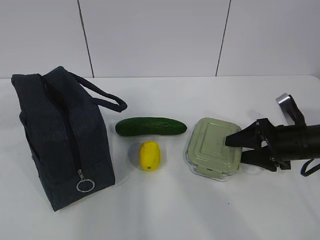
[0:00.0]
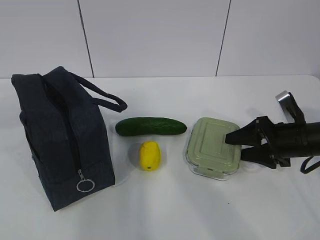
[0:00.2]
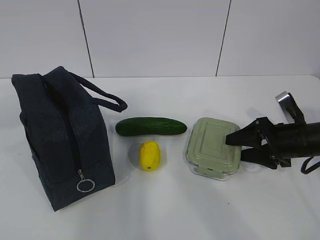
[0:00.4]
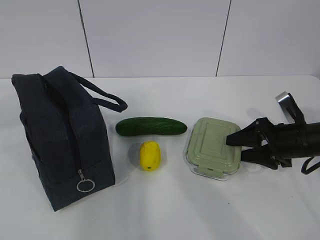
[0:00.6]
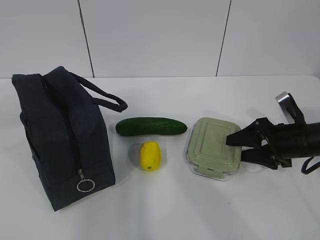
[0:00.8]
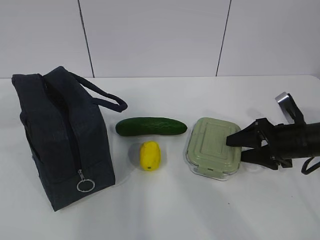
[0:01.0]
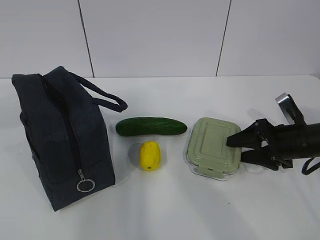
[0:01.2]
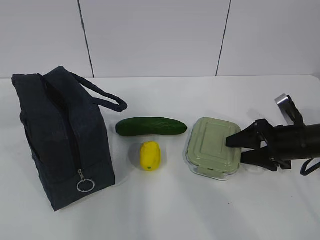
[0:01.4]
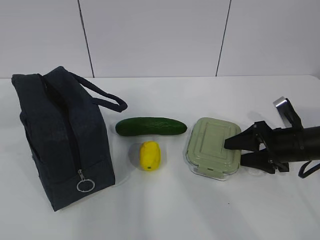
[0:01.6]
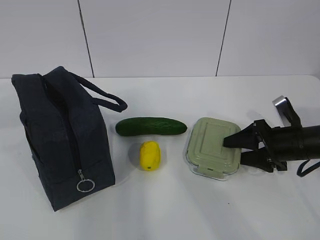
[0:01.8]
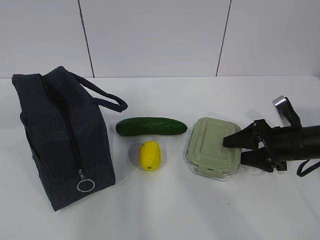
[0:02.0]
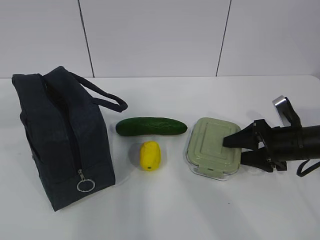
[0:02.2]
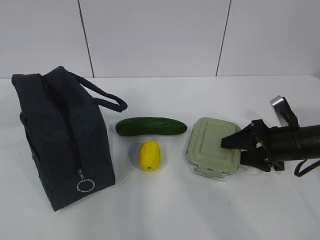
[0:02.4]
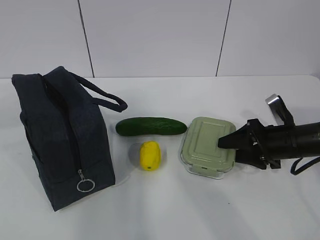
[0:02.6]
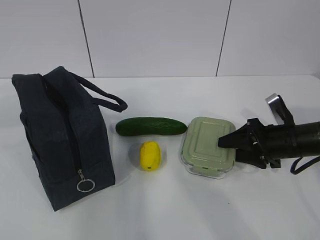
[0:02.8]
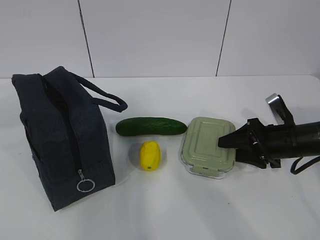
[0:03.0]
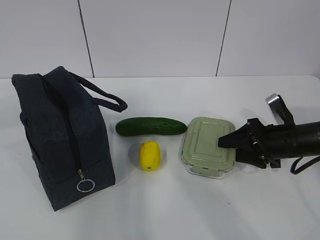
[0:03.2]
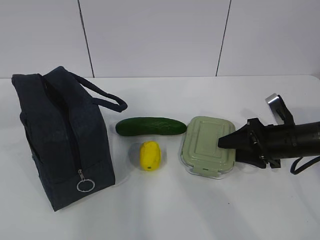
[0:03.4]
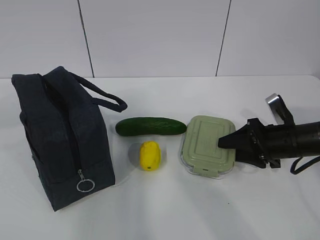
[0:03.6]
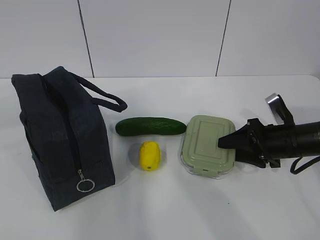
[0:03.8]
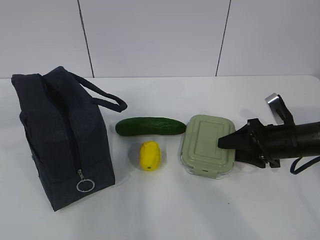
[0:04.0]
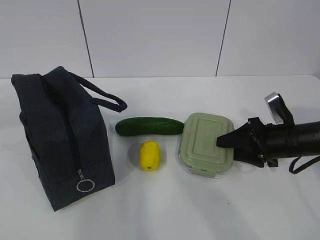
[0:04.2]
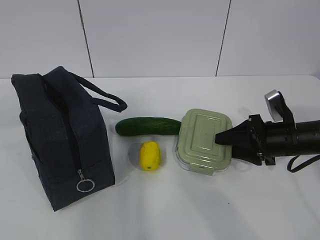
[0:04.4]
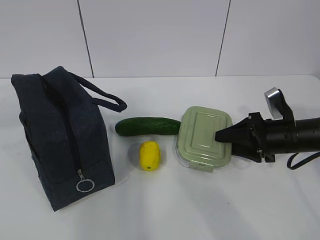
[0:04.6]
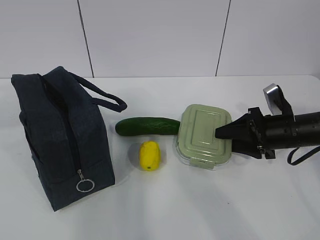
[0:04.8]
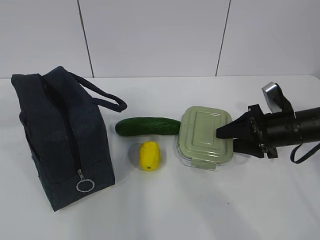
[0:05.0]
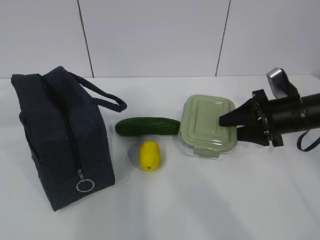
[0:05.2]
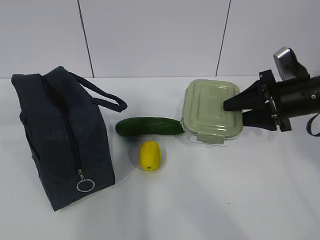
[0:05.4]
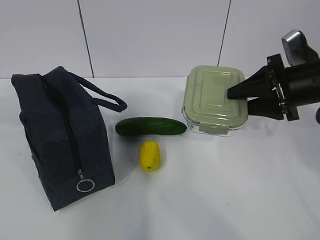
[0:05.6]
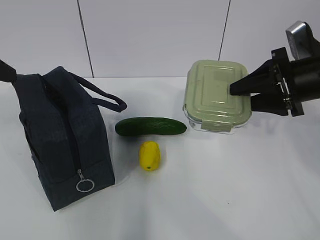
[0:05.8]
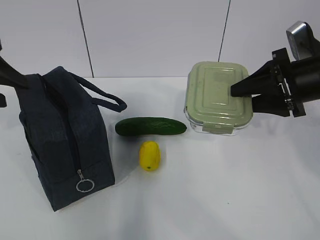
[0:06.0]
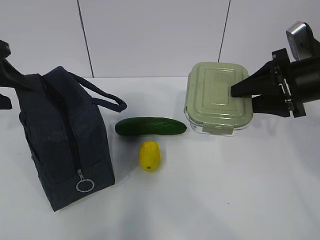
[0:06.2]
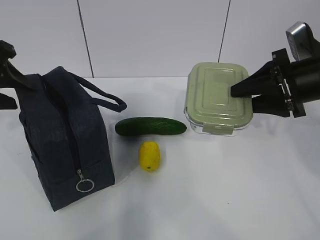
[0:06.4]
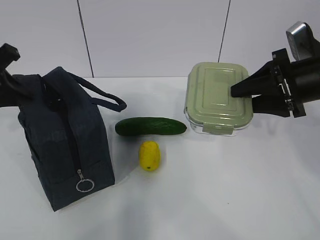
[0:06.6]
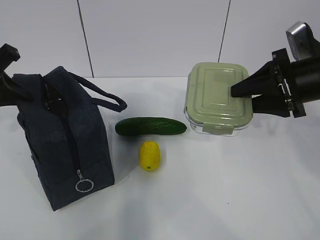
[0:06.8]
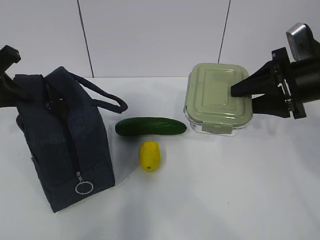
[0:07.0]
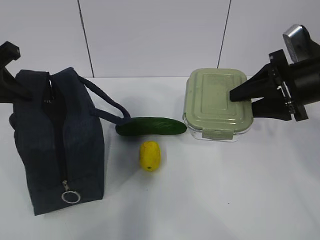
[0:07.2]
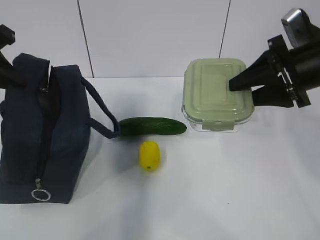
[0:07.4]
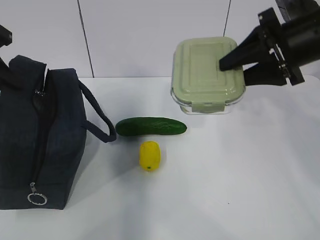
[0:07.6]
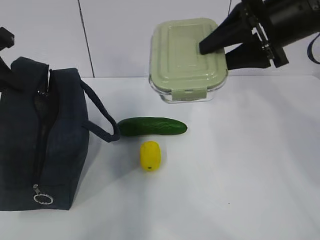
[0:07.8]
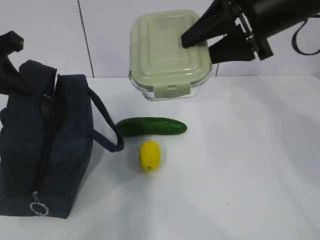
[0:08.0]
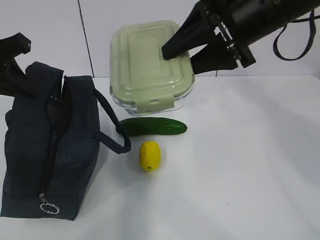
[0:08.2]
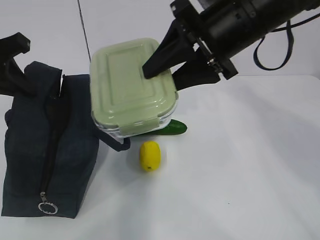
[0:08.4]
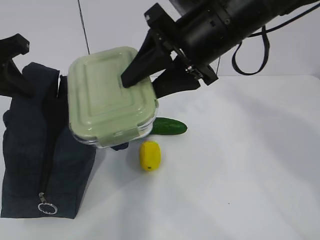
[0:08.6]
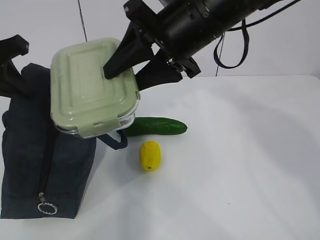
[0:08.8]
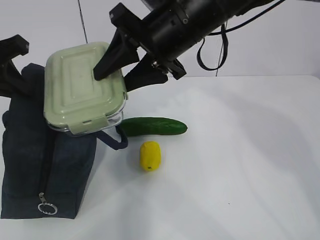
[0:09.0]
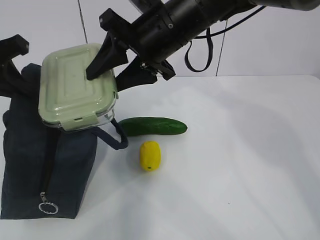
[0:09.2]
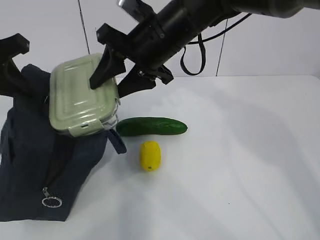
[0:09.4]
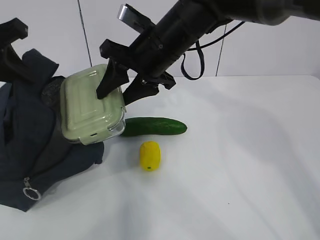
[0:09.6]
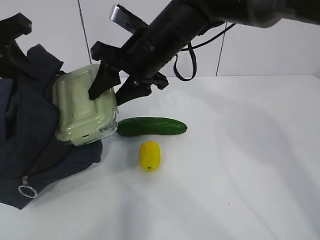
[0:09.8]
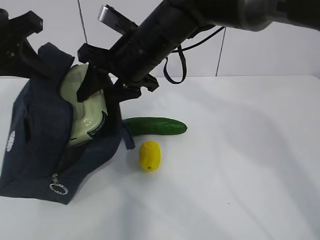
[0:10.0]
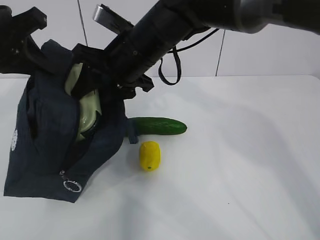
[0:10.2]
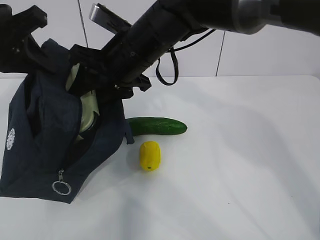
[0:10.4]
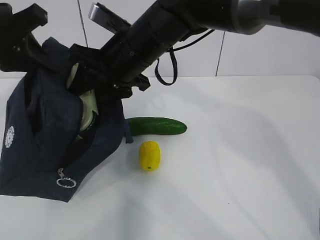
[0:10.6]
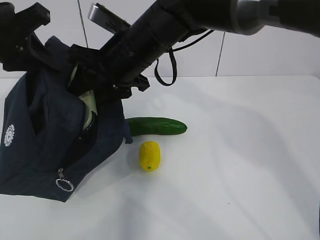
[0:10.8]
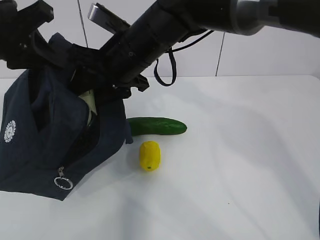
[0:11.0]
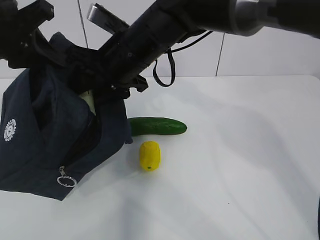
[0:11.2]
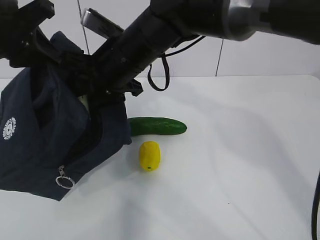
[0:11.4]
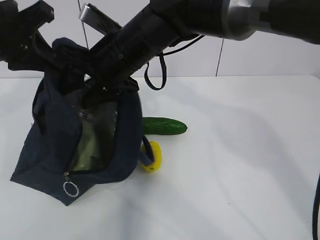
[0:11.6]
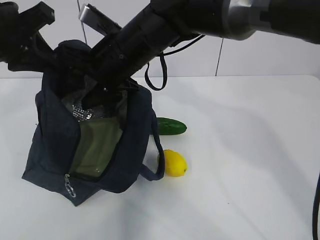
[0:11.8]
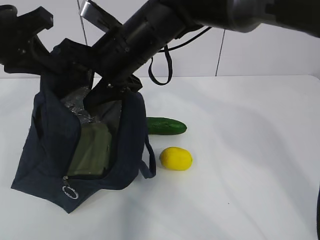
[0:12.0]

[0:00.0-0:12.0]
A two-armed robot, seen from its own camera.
Step, 0:00.8 to 0:04.2: Grab the lunch bag with your left hand.
Step, 0:04.4 to 0:06.8: Place it into the bag with your right hand.
Step, 0:07.0 to 0:11.4: Grab the cucumber with your right hand.
0:00.0 to 0:01.6: Neither gripper changes place.
0:01.6 to 0:04.4: The grippers move only a little.
0:04.4 to 0:06.0: The right gripper travels upward by roughly 15 cm. The left gripper heads forward and downward, covering some 10 cm.
0:06.0 to 0:07.6: The right gripper goes roughly 5 cm upward. The left gripper closes its fingers.
0:07.6 to 0:09.0: The right gripper travels to the left by roughly 20 cm.
0:09.0 to 0:10.4: The right gripper heads to the left, covering some 5 cm.
0:10.4 to 0:12.0: The grippers move only a little.

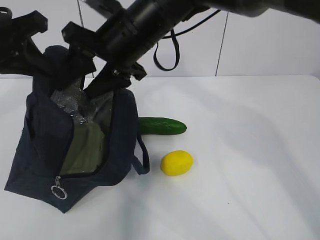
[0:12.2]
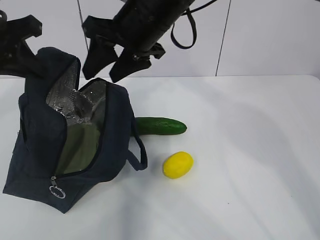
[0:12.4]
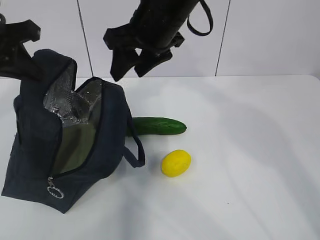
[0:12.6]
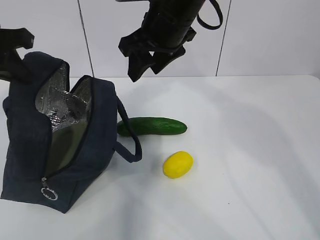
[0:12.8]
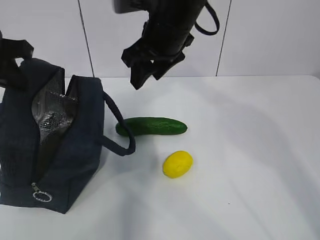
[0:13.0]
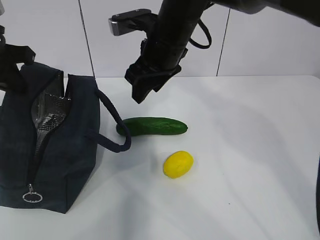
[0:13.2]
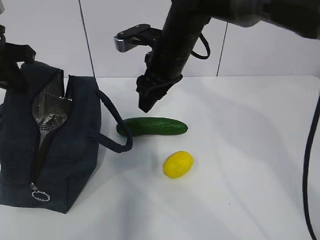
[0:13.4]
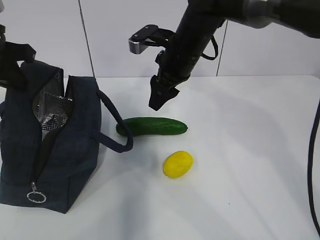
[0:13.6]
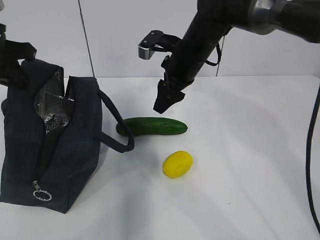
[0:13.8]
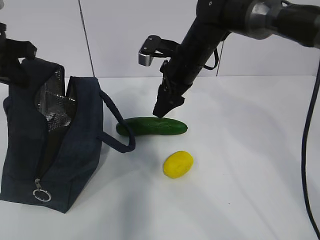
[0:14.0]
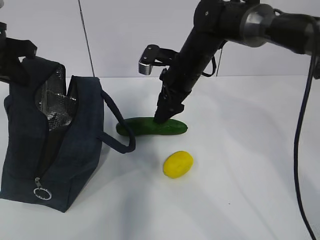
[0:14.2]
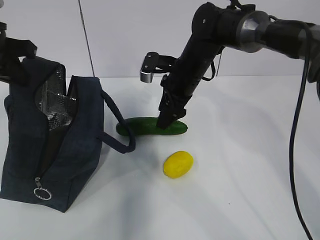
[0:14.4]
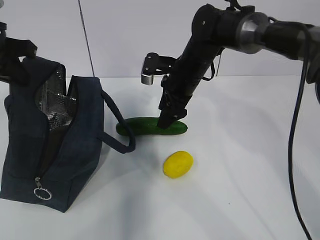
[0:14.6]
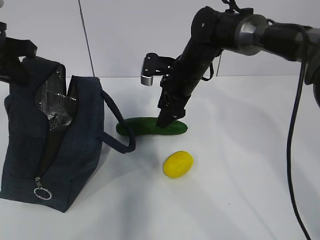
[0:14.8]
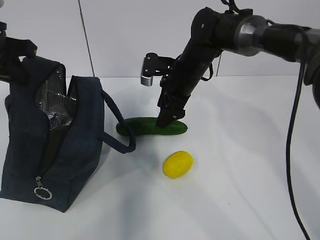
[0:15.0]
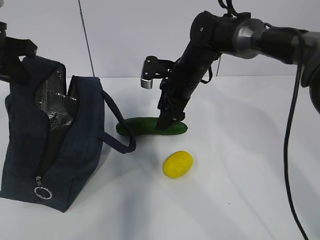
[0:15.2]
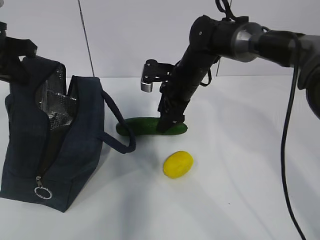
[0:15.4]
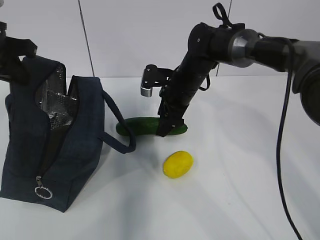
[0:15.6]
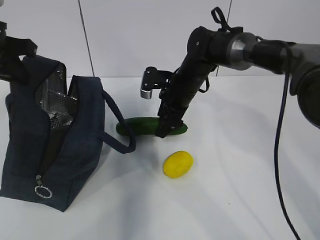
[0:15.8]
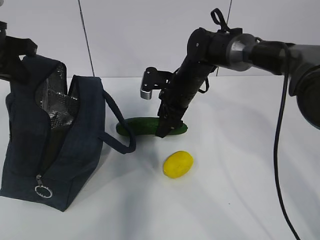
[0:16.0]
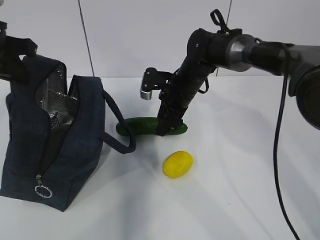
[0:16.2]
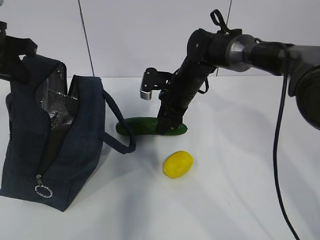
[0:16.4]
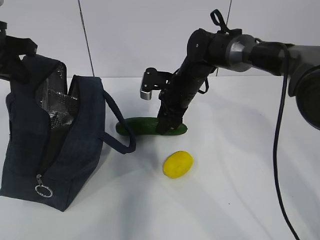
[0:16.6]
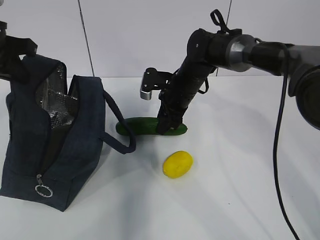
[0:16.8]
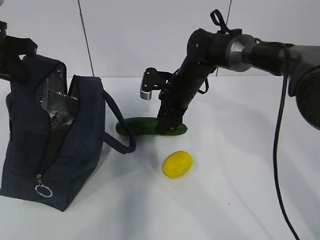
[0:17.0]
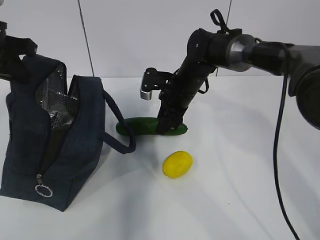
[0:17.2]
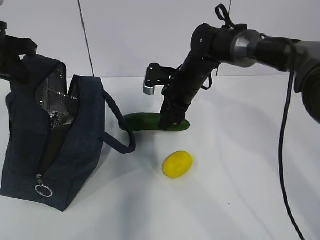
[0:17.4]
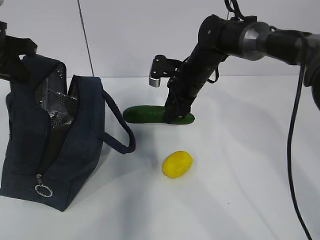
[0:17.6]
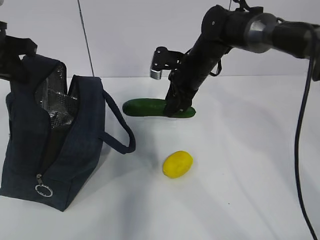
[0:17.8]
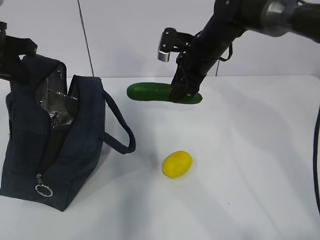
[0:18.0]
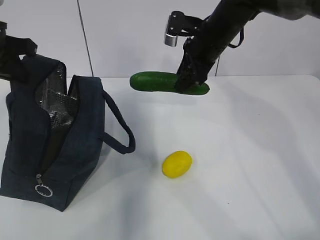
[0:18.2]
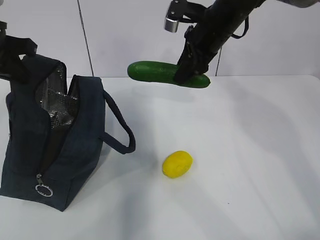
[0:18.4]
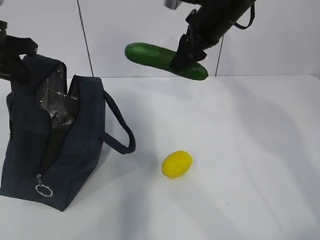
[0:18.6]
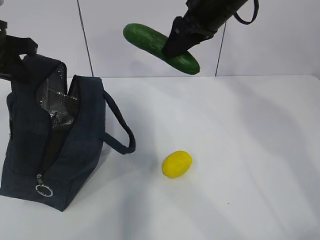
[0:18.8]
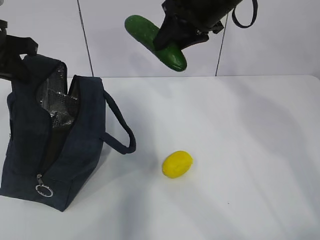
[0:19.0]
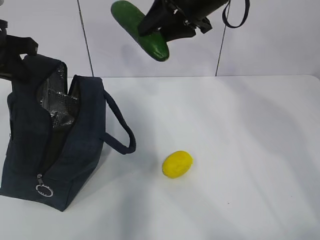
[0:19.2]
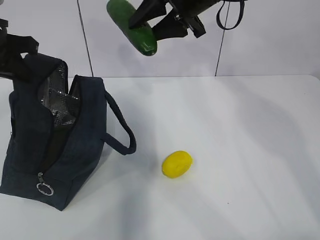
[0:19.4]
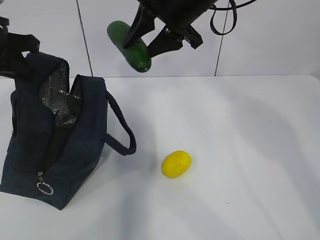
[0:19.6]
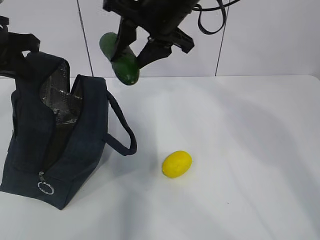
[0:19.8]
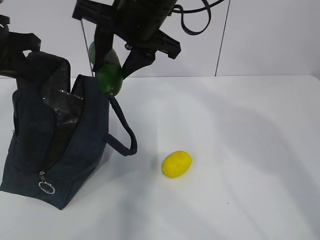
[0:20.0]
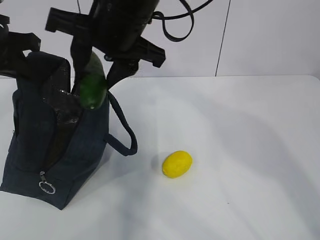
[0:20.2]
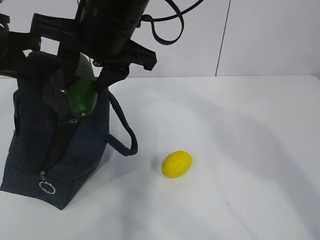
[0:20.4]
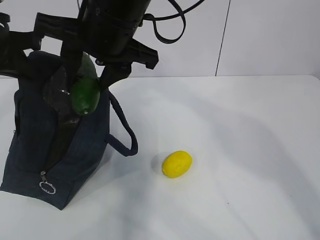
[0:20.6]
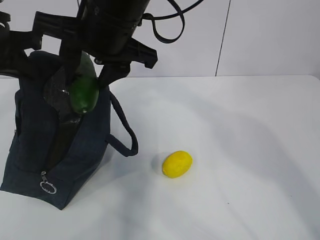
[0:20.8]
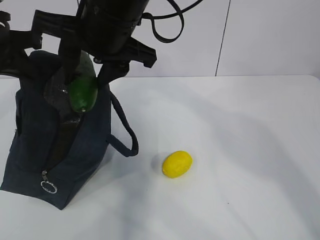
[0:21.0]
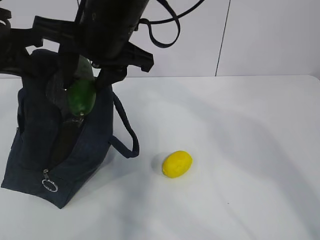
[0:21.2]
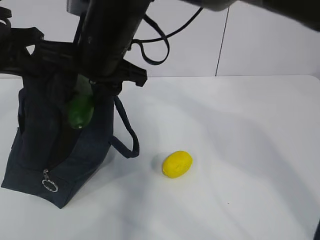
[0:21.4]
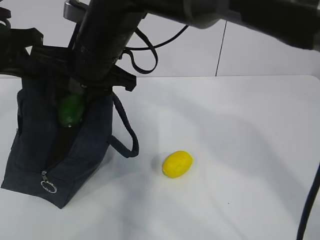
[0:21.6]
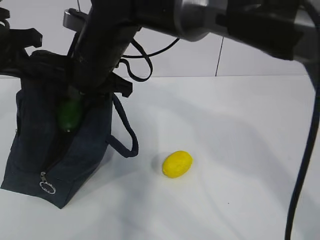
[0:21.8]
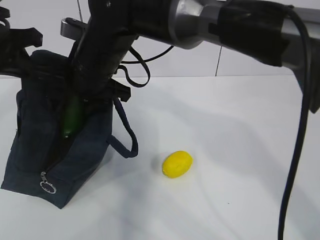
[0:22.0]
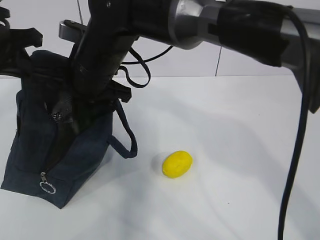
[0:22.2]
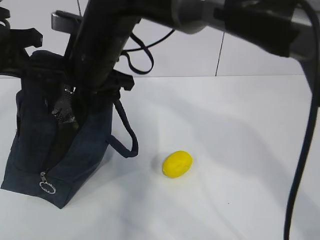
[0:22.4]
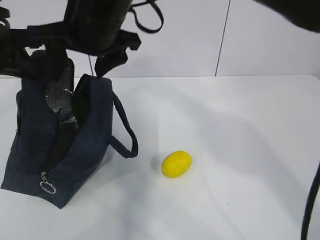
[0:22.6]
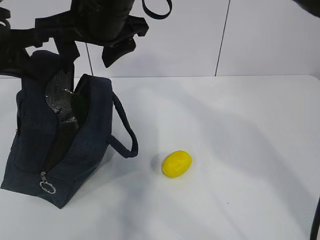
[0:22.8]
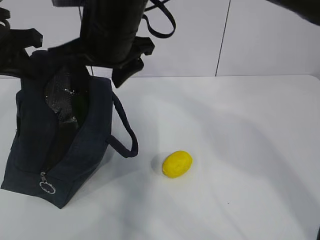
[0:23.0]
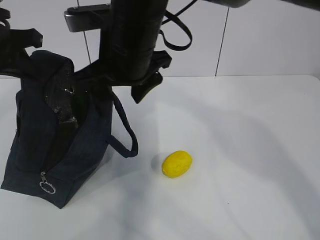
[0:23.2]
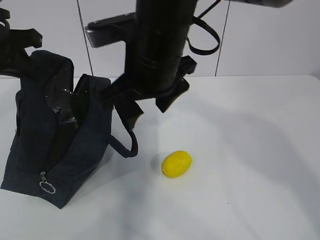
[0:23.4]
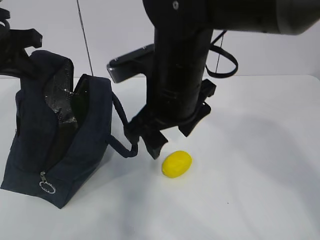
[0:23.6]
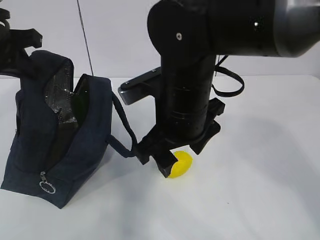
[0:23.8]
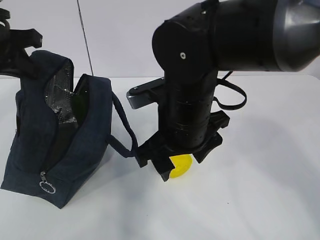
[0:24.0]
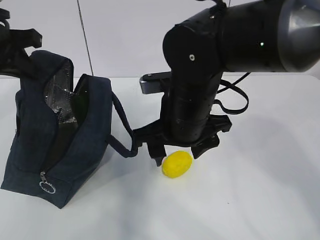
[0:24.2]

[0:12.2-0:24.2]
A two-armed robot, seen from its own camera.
Step, 0:12.2 to 0:15.6: Place it into the bag with your right hand.
Step, 0:15.8 to 0:20.2: Grab the lemon with your right hand.
Step, 0:22.2 to 0:23.6: Grab the lunch bag with your right hand.
0:12.2 to 0:13.8: The right gripper heads to the right, forward and downward, covering some 15 cm.
0:13.8 to 0:15.2: The right gripper heads downward, covering roughly 5 cm.
0:15.2 to 0:16.6: The right gripper closes up.
0:16.6 to 0:18.2: The right gripper travels upward by about 10 cm.
0:18.2 to 0:19.8: The right gripper heads upward, to the left and backward, covering roughly 15 cm.
0:19.8 to 0:21.2: The right gripper goes roughly 10 cm to the left and backward.
0:21.2 to 0:22.6: The right gripper moves about 10 cm downward and comes back, and opens its fingers.
0:22.6 to 0:24.2: The right gripper is displaced downward, to the right and backward by about 15 cm.
